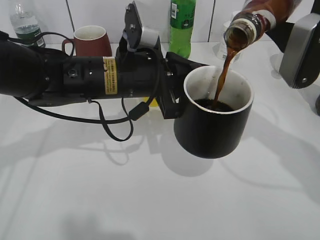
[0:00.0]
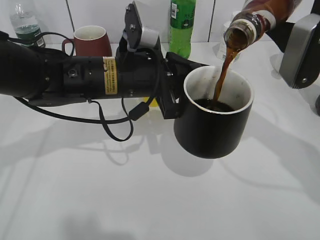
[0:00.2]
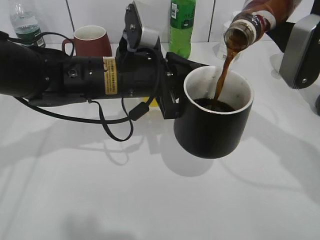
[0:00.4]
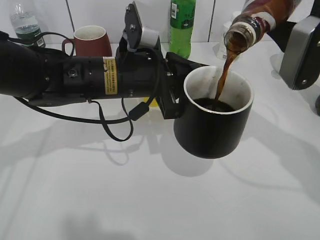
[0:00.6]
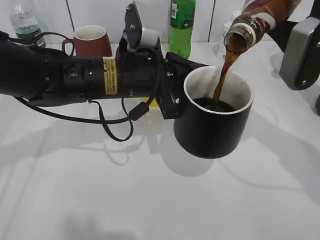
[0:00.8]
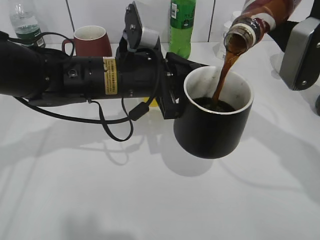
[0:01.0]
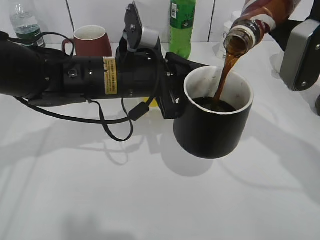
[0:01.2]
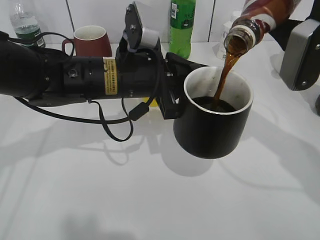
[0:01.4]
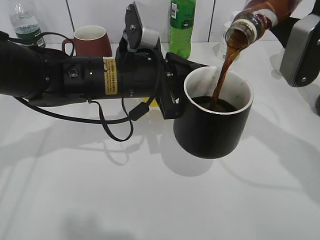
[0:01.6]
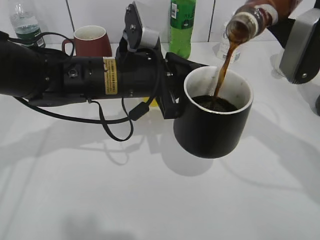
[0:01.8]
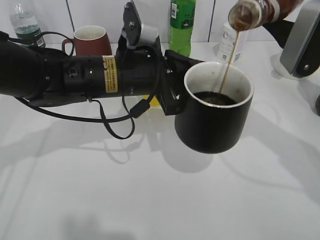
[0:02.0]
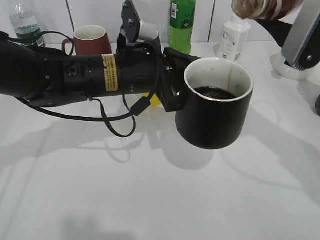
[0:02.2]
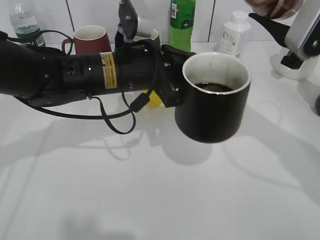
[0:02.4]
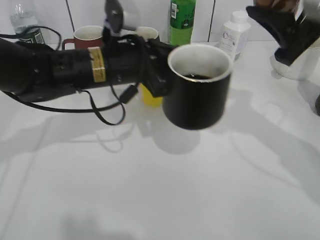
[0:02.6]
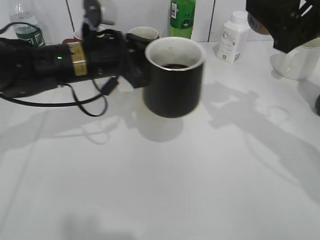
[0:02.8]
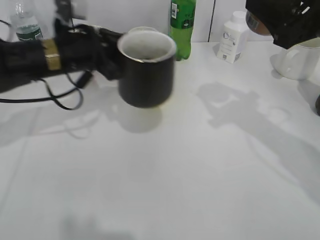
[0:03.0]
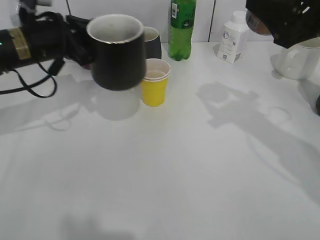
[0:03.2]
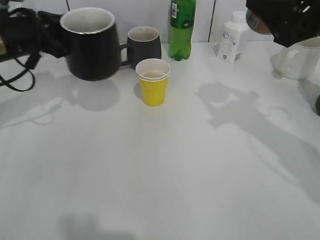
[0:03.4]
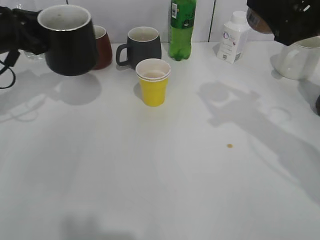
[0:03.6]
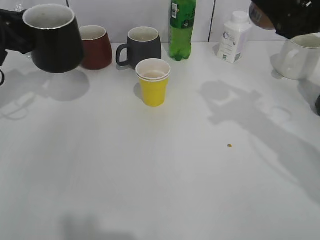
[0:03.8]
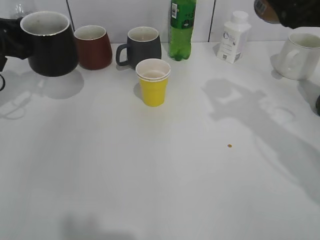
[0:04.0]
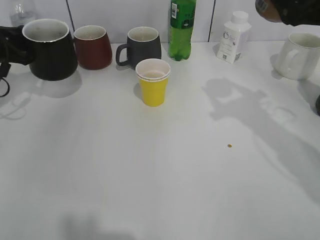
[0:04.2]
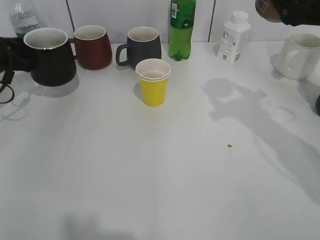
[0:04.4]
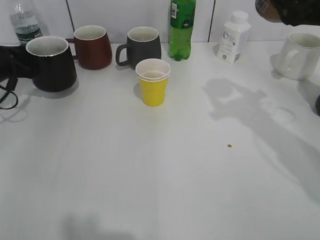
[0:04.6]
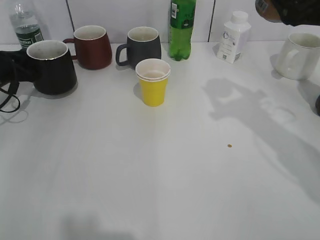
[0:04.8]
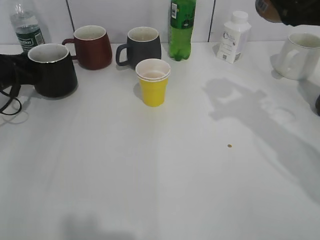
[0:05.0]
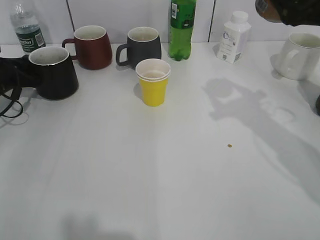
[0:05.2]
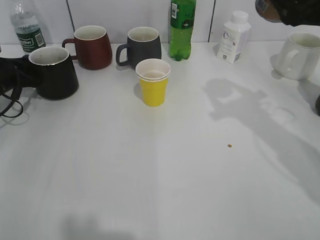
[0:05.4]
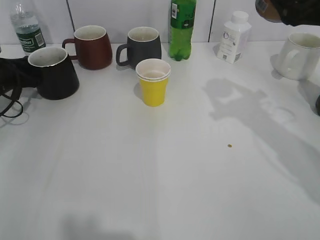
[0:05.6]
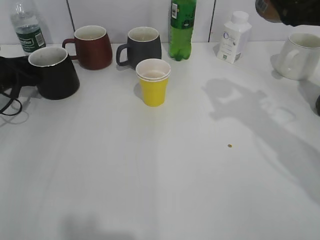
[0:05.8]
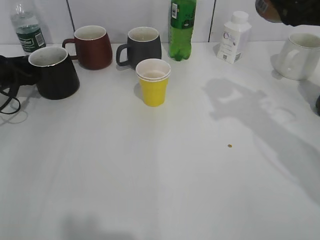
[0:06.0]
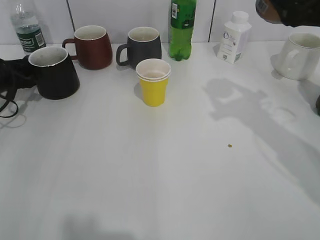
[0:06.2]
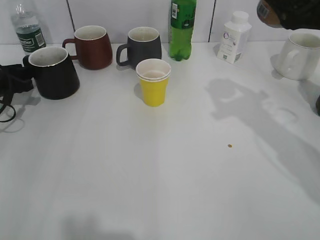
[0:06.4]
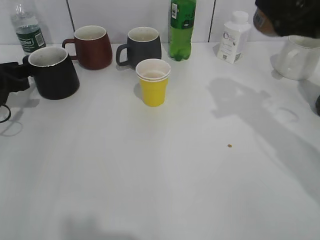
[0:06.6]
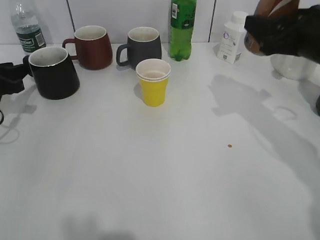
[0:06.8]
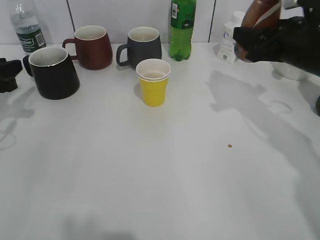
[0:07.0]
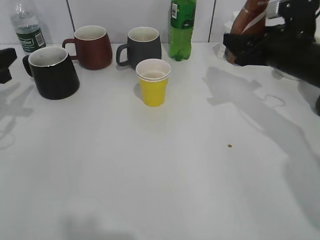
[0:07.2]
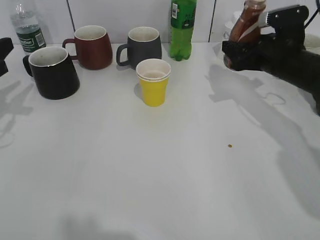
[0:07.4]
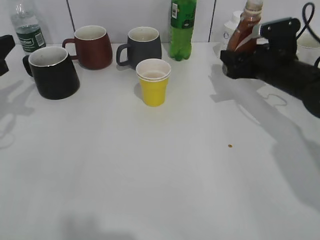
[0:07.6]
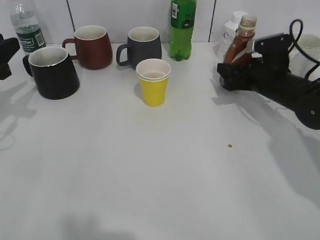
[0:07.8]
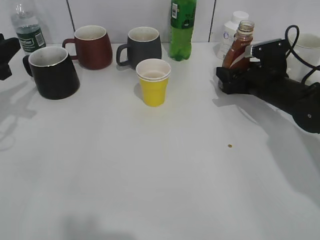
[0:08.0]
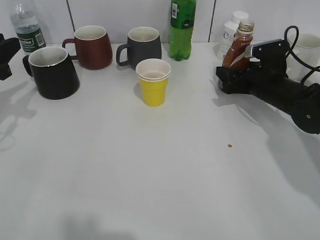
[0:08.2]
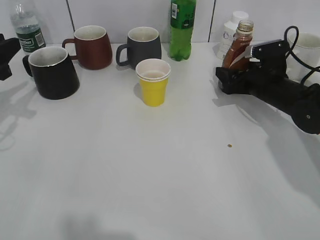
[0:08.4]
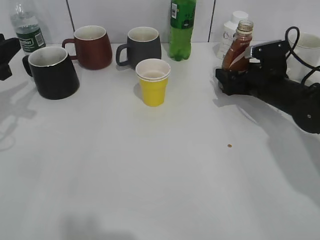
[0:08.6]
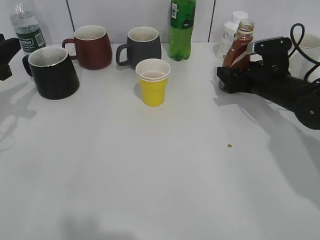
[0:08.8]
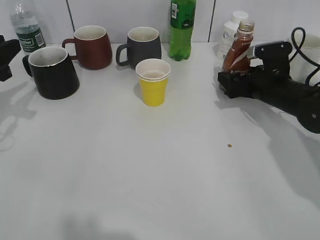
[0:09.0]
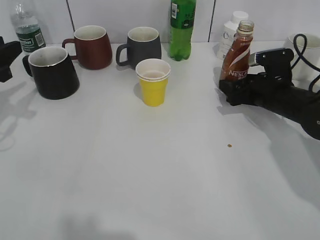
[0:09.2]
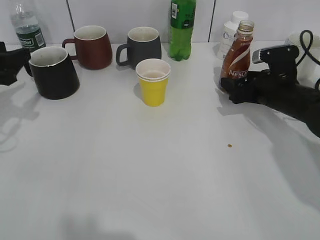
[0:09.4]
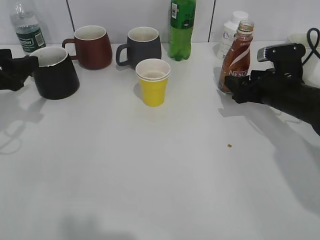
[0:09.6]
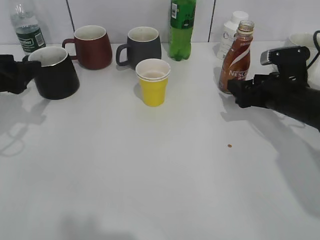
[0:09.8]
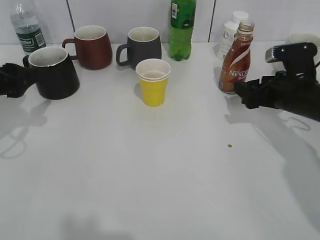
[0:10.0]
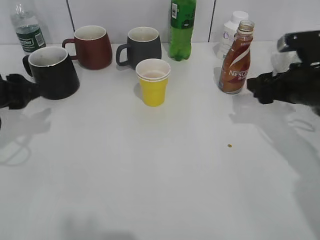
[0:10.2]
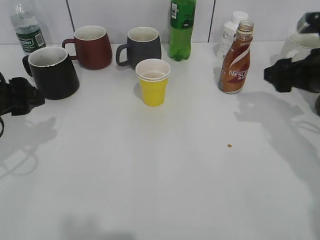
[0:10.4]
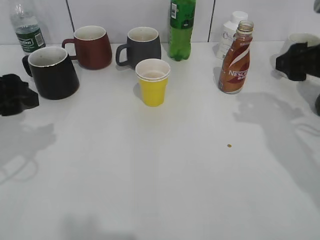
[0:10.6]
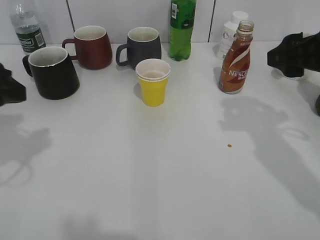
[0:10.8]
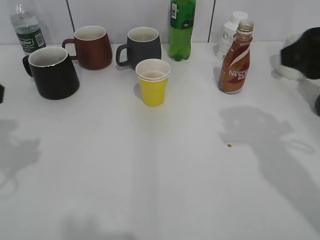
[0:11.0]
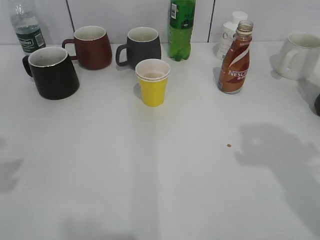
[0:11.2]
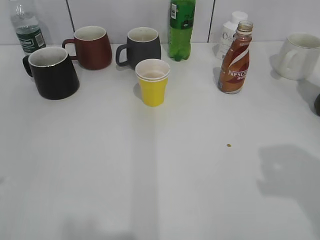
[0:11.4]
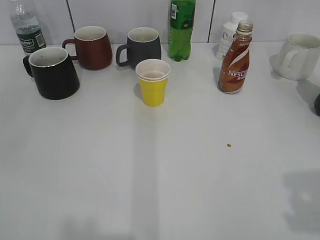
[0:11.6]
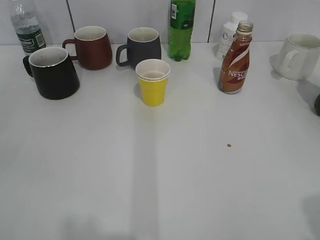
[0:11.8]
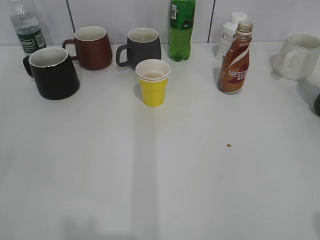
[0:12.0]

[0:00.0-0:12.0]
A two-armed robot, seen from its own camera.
Step, 0:00.0 to 0:02.2: Pour the coffee from bottle to cup with right gripper.
Step, 0:02.4 to 0:06.2: Place the black cup on the table with left gripper.
Step, 0:06.4 to 0:09.4: Place the coffee bottle on the table with right gripper.
0:00.0 to 0:01.6: There are only small adjustments of the grippers.
0:01.6 to 0:03.0: The left gripper is displaced to the left and forward by some 10 cm.
0:03.0 to 0:04.4: The left gripper moves to the left, about 20 cm.
0:04.4 to 0:06.0: The left gripper opens up.
0:06.0 to 0:07.6: The right gripper goes roughly 20 cm downward and forward. The left gripper is displaced backward and upward by about 15 cm.
0:07.6 to 0:09.0: The right gripper opens up.
0:09.0 to 0:10.4: The right gripper shifts about 10 cm upward and backward. Meanwhile the left gripper shifts approximately 10 cm to the right and backward, and opens up.
0:10.4 to 0:12.0: The right gripper travels backward and upward by approximately 30 cm. Meanwhile the left gripper shifts roughly 25 cm backward.

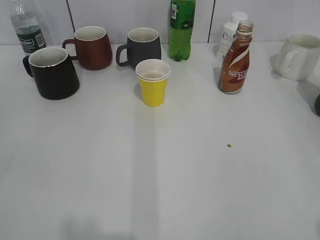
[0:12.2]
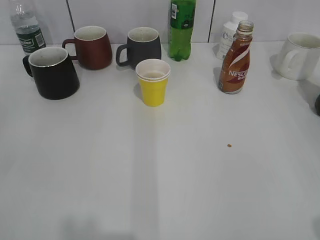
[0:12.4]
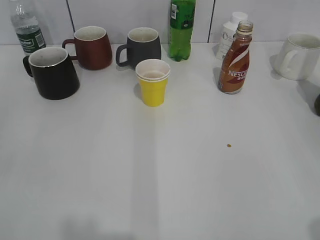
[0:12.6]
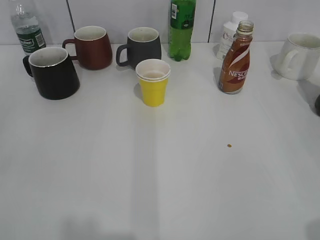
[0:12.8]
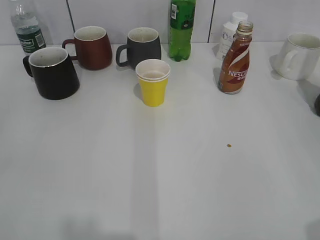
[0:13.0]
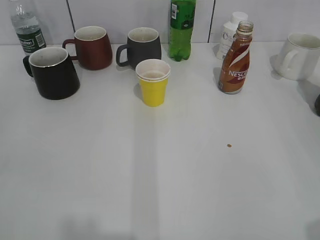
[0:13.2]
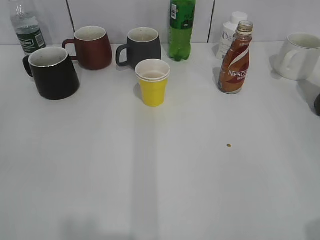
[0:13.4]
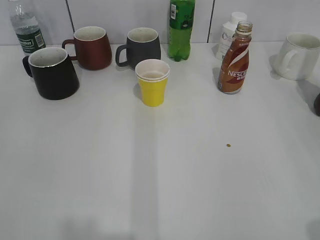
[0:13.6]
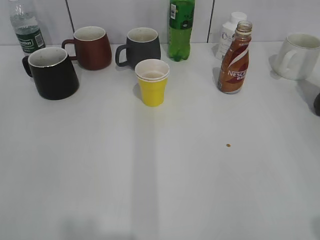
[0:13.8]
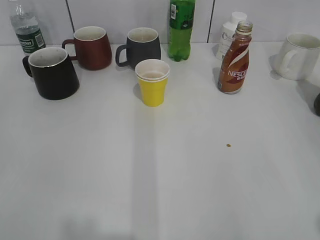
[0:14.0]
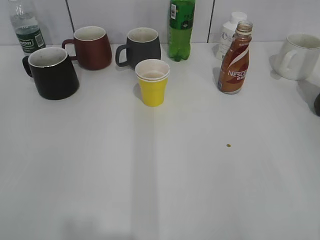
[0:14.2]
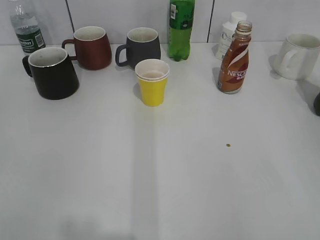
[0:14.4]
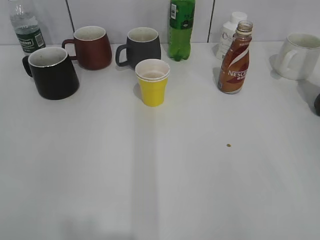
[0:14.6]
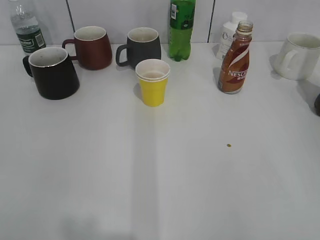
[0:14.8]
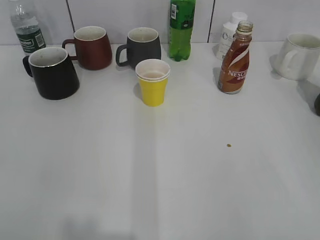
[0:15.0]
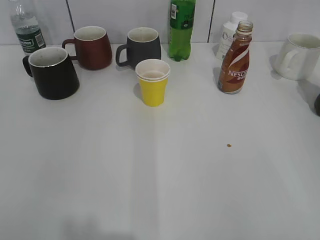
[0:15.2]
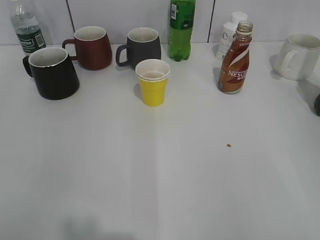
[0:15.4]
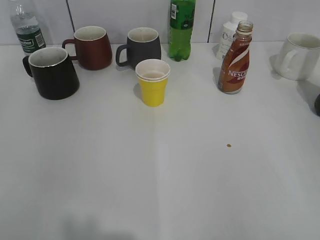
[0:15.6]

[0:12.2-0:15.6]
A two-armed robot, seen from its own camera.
0:12.2 to 0:13.8: The left gripper closes.

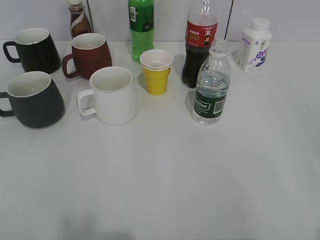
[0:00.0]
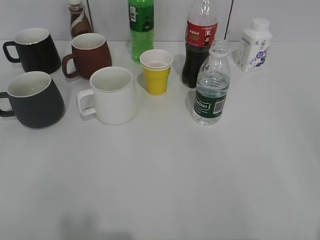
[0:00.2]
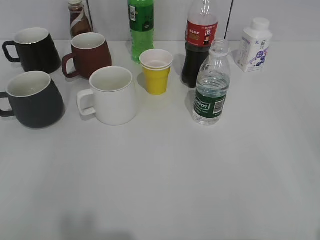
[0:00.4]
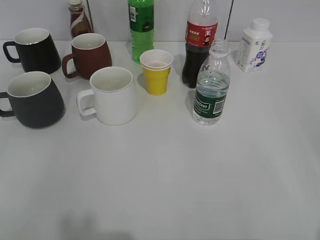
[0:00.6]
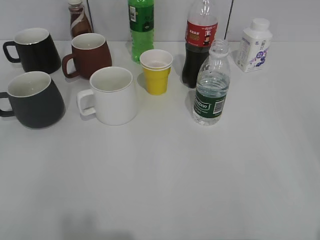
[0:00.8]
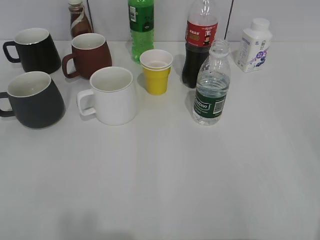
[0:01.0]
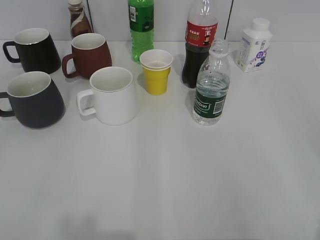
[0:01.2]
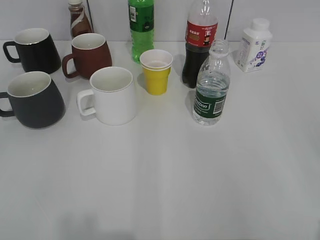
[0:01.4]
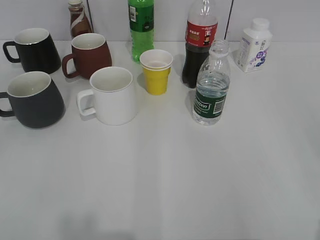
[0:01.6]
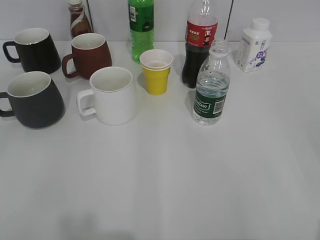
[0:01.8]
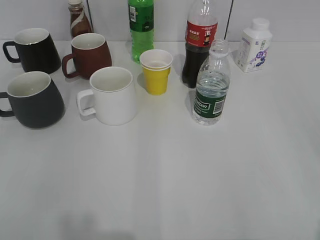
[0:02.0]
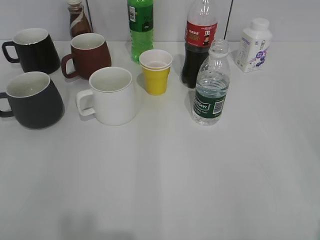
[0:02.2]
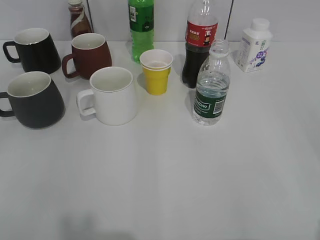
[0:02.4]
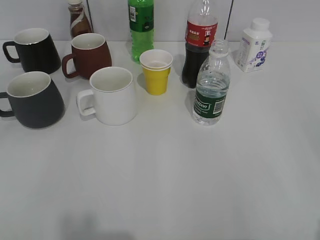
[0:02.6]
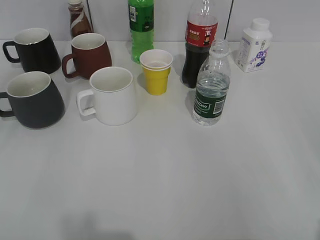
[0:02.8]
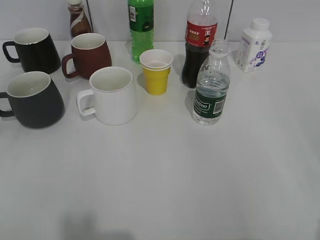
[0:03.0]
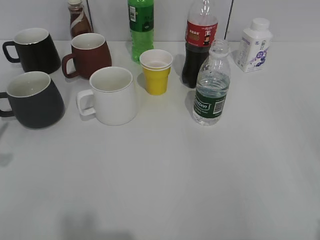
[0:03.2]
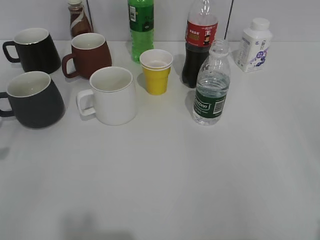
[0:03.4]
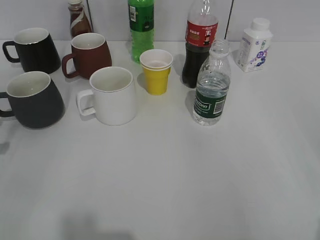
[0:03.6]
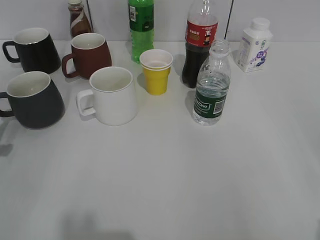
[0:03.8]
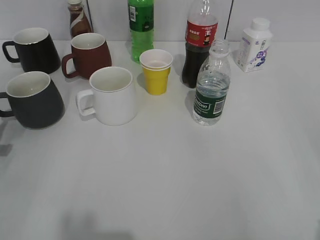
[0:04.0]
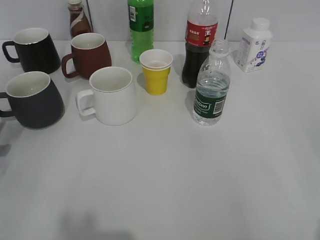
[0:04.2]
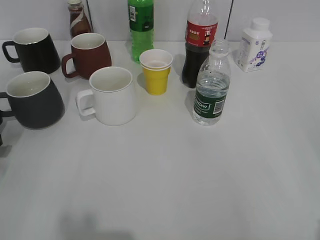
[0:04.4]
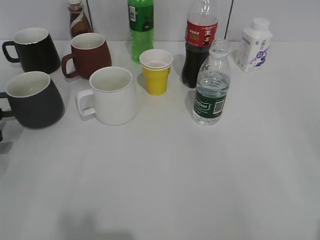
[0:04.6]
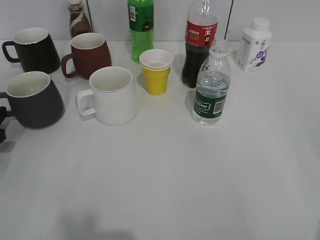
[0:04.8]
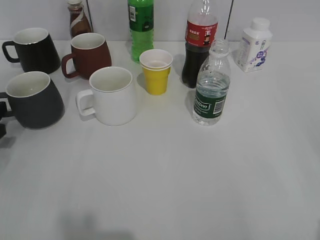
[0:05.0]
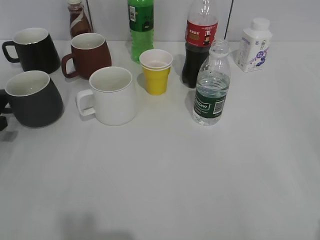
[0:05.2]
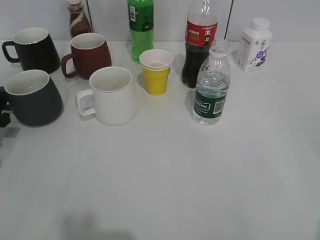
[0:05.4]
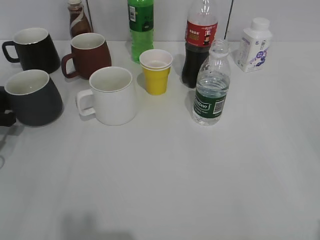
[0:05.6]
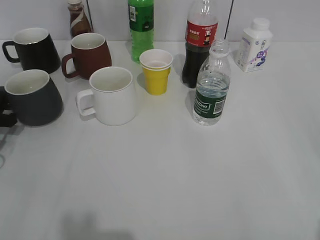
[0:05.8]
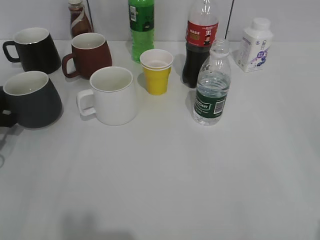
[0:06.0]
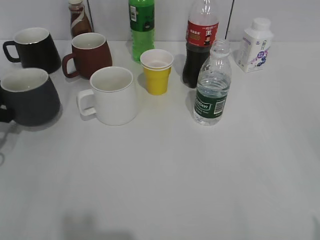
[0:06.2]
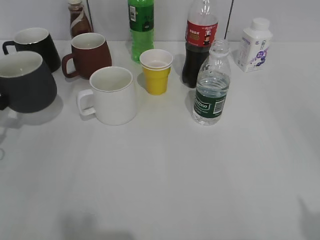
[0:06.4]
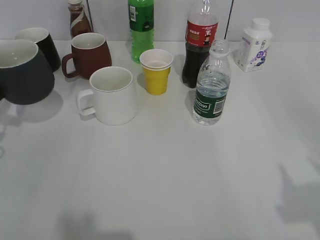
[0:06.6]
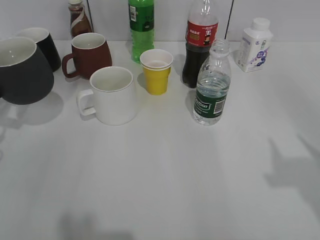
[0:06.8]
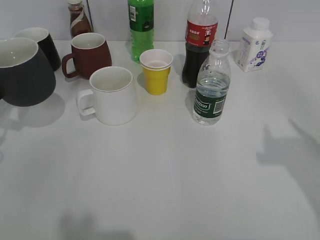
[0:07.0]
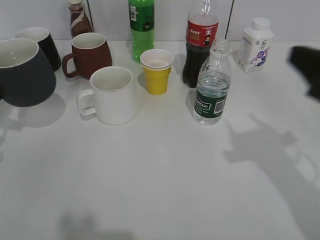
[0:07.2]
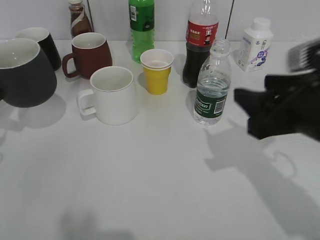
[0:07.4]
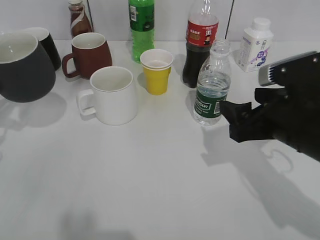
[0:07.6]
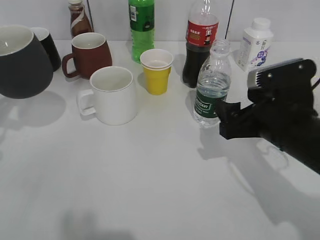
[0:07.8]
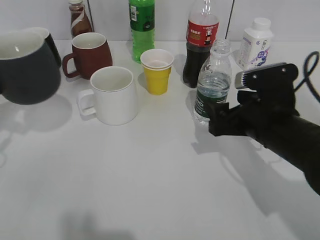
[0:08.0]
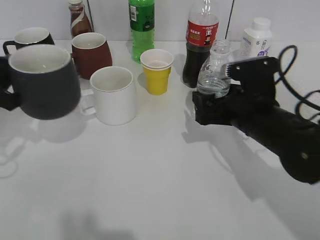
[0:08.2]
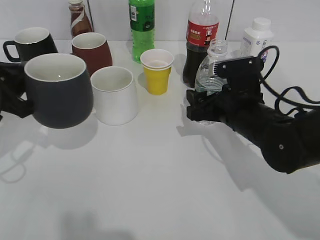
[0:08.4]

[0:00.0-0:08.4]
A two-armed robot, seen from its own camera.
Step, 0:06.0 to 0:06.6: Lift the black cup with left gripper.
0:02.8 to 0:04.2: The left gripper is displaced downward and forward by about 25 cm.
0:04.2 to 0:05.6: The left gripper heads forward, covering approximately 5 cm.
0:05.6 to 0:07.0: The left gripper heads upward, covering approximately 5 cm.
0:07.0 to 0:08.4: The right gripper goes approximately 25 cm downward, forward and to the left, and opens. The left gripper is displaced to the right by about 5 cm.
